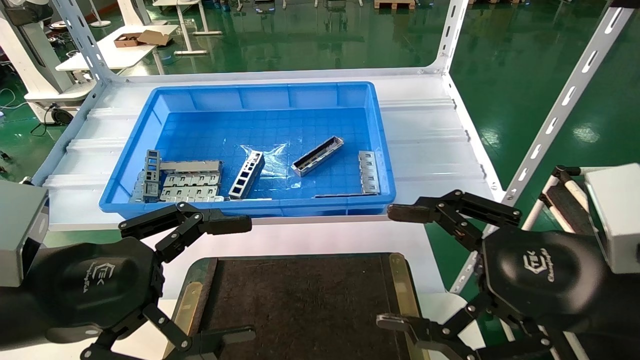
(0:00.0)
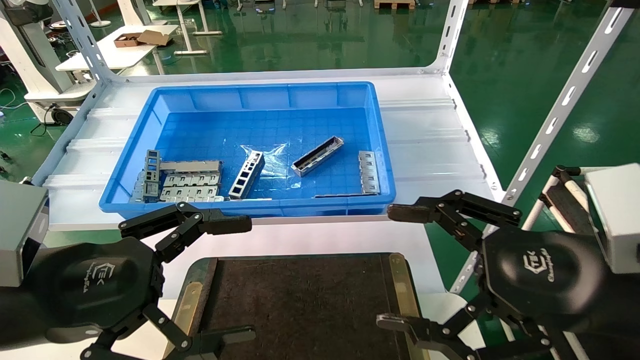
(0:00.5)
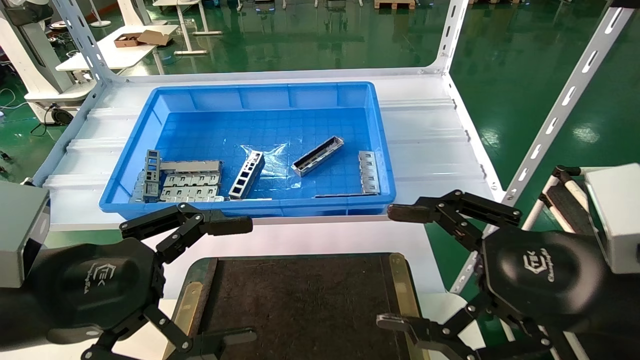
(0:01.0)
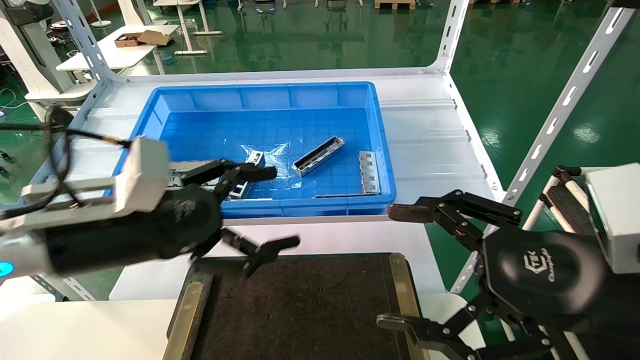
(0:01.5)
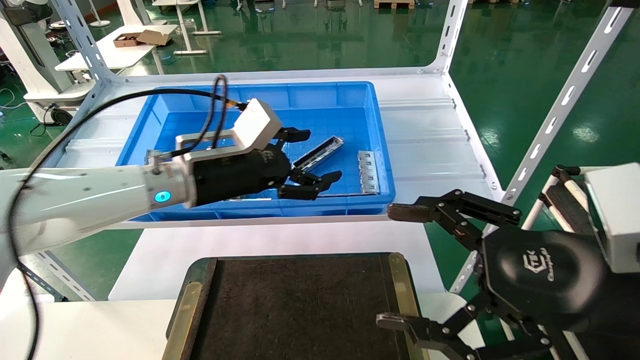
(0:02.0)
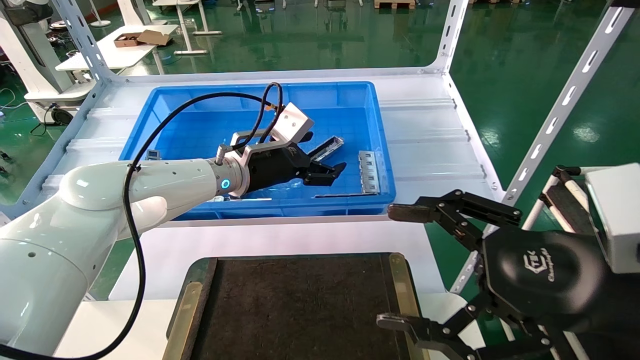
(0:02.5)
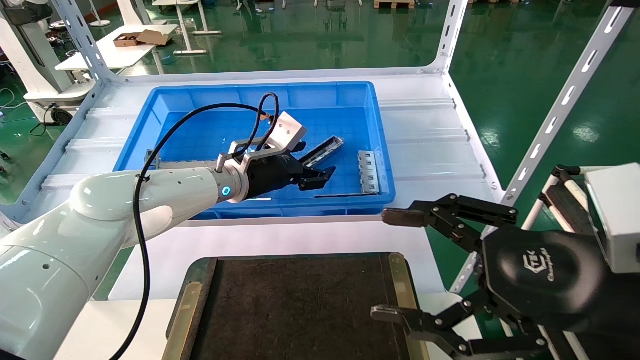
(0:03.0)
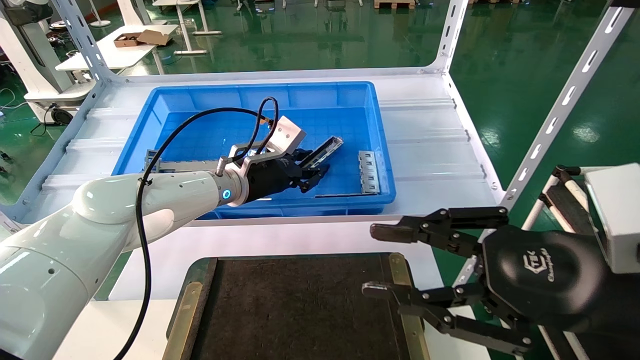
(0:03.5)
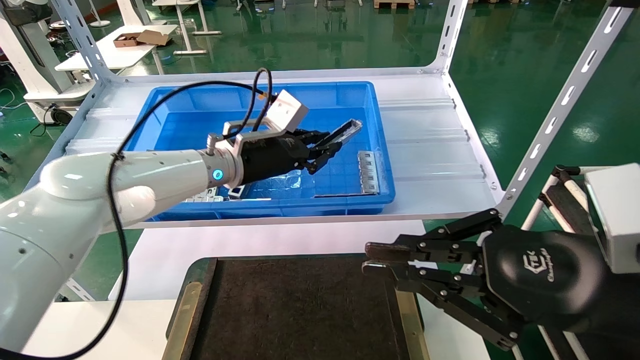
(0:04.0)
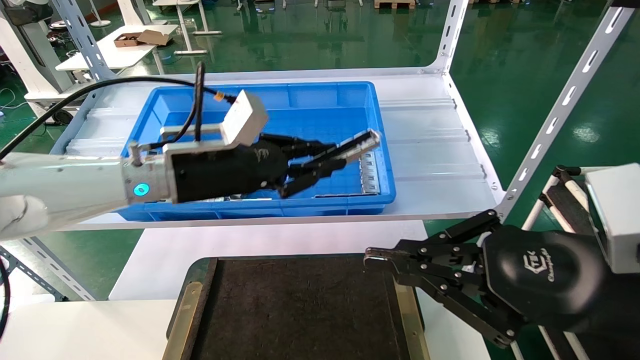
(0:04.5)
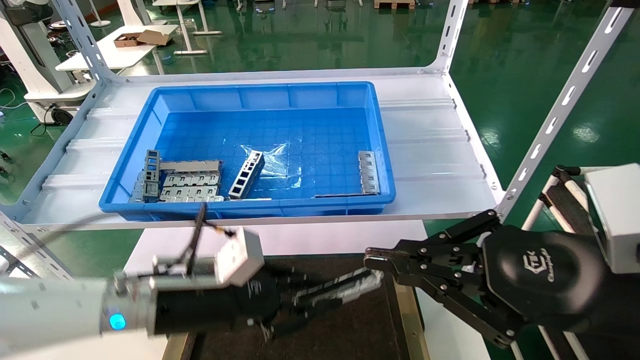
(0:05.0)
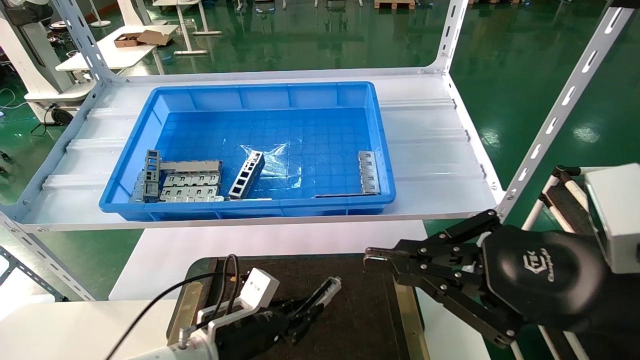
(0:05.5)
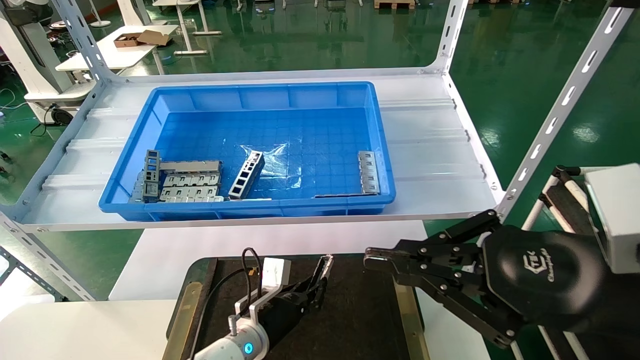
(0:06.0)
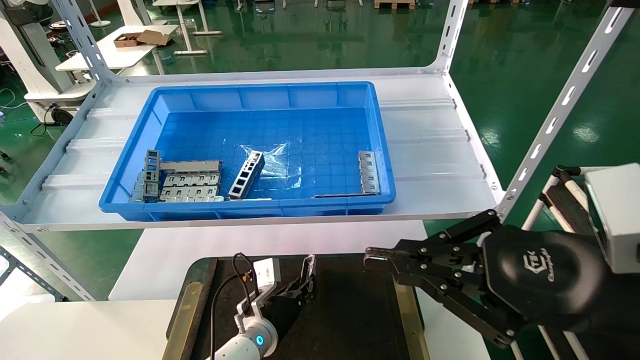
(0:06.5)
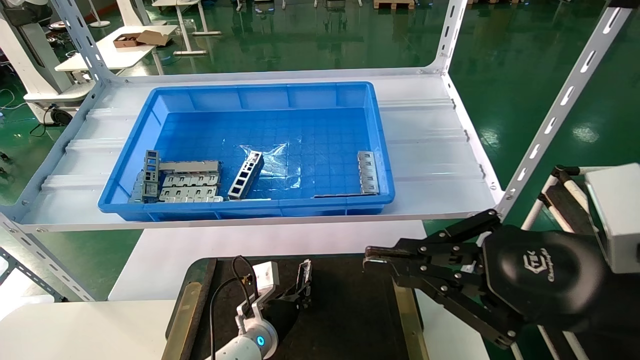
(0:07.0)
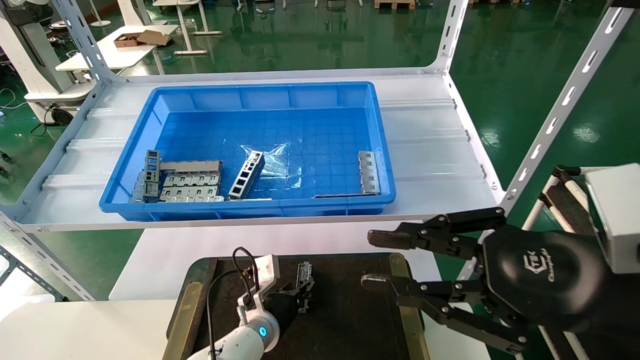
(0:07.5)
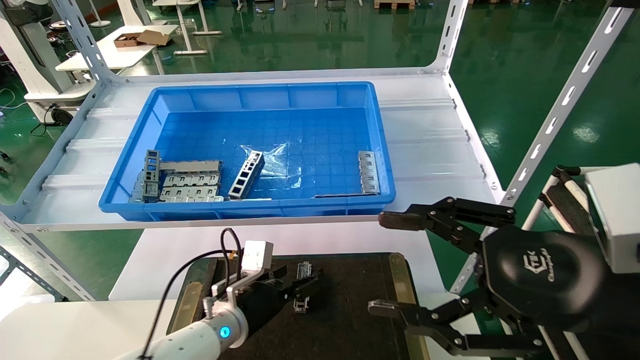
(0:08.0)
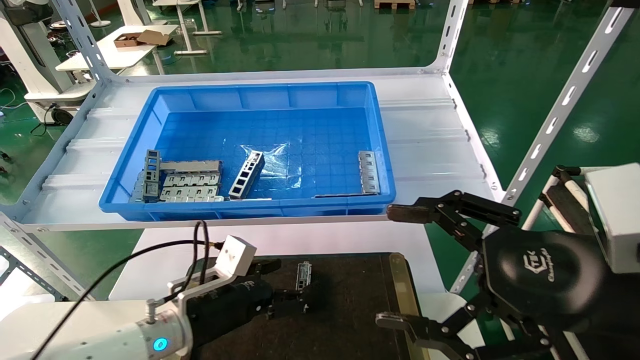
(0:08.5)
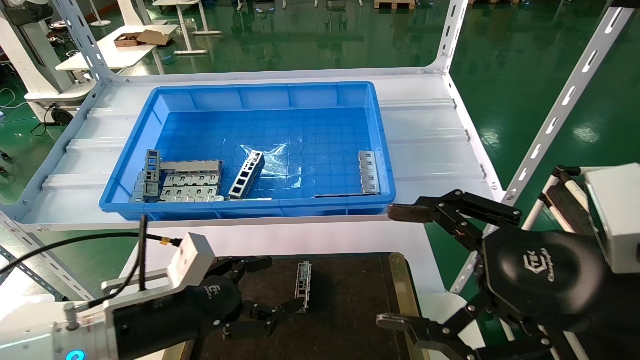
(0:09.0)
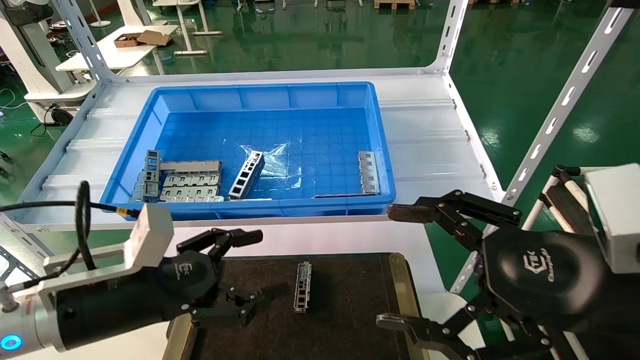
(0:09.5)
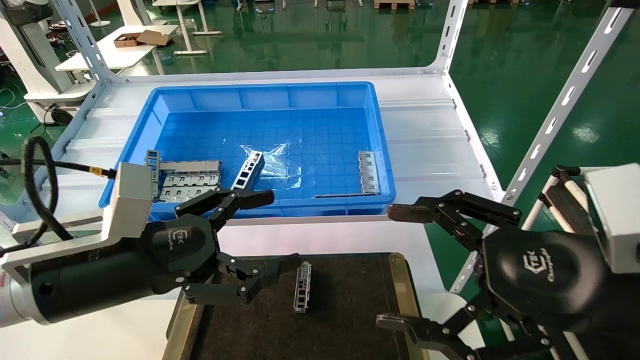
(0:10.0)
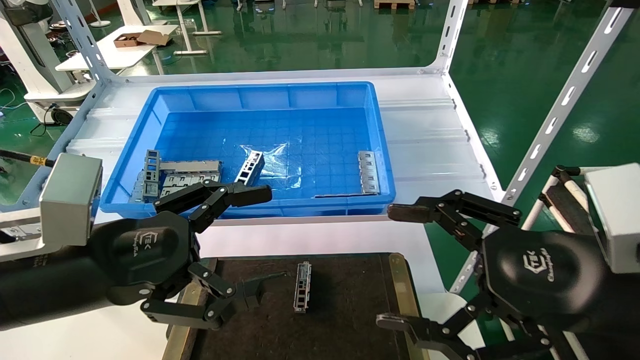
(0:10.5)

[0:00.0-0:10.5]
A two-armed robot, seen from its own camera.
Task of the whole recording: Grasp the part with one hand and place it on the black container.
Step, 0:01.5 to 0:03.5: Pick up the front USB bracket from the feeding area.
Step, 0:04.0 to 0:07.0: Place the front USB bracket into the box.
0:00.0 to 0:02.0: The left gripper moves forward and to the right, roughly 25 cm.
0:02.0 to 0:04.0: The right gripper closes. The left gripper moves forward, some 5 cm, and closes its fingers.
0:04.0 to 0:06.5: The left gripper shifts roughly 30 cm downward.
0:06.5 to 0:08.5: The left gripper heads upward, backward and to the left, covering roughly 15 cm, and opens up. Meanwhile the right gripper opens.
0:08.5 to 0:10.5: The left gripper is displaced upward and backward by approximately 20 cm.
